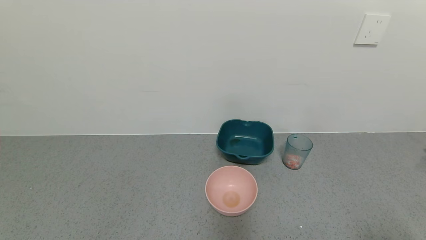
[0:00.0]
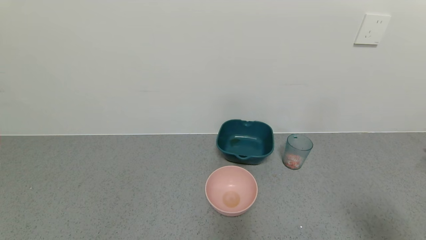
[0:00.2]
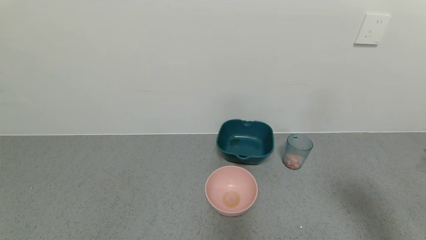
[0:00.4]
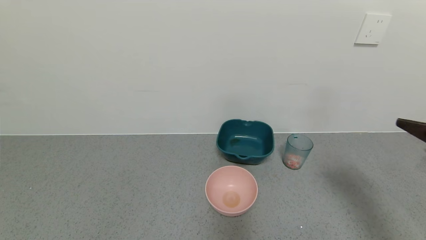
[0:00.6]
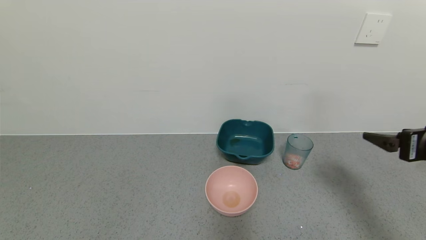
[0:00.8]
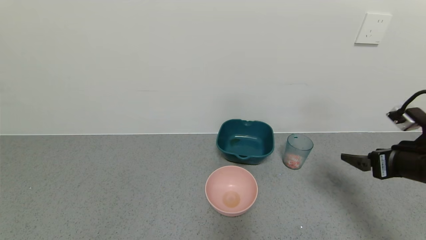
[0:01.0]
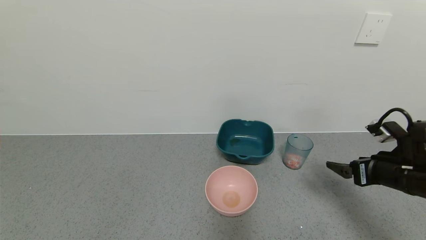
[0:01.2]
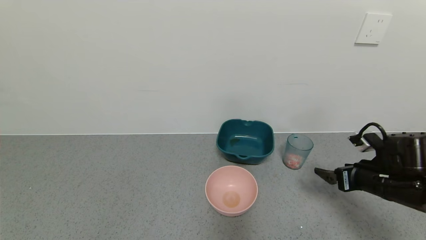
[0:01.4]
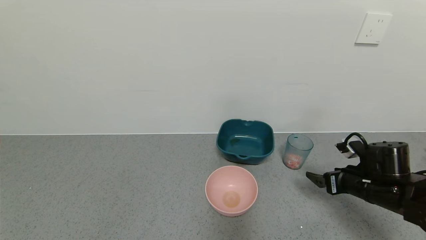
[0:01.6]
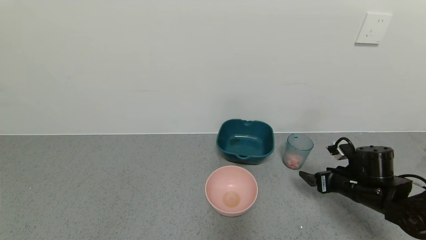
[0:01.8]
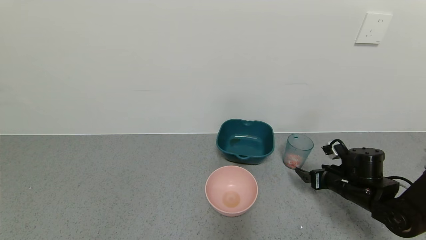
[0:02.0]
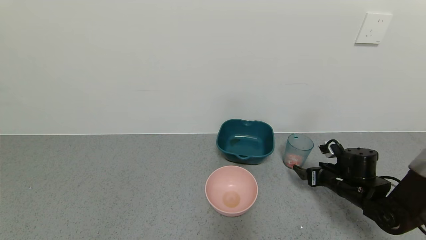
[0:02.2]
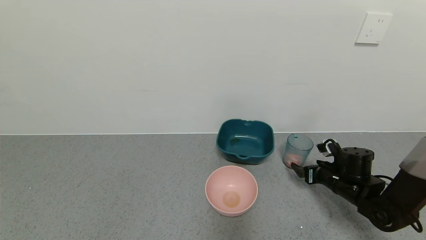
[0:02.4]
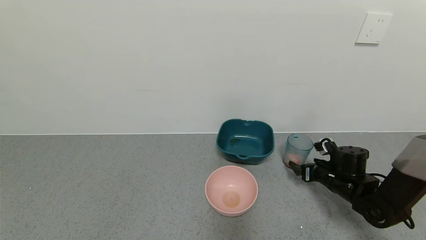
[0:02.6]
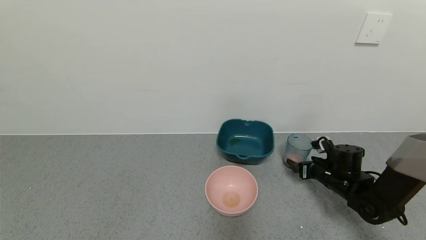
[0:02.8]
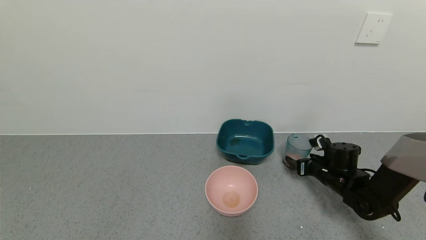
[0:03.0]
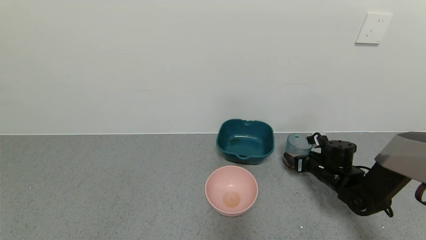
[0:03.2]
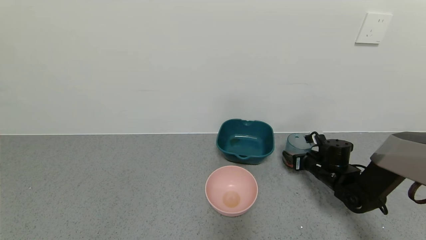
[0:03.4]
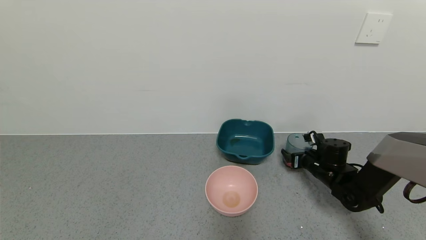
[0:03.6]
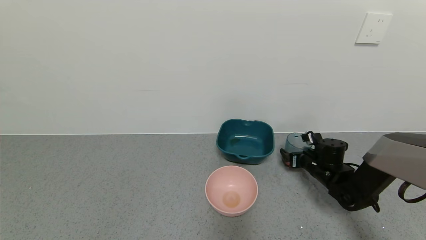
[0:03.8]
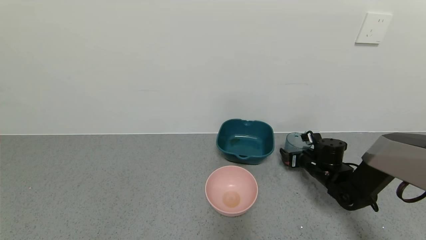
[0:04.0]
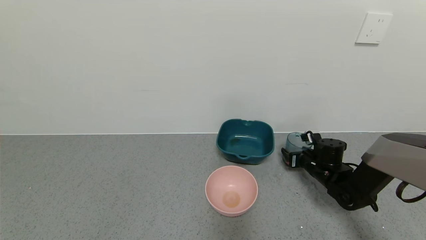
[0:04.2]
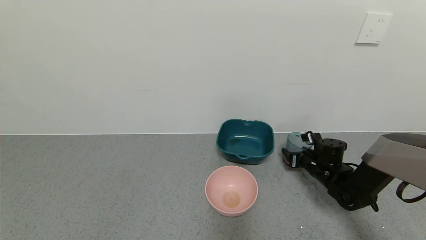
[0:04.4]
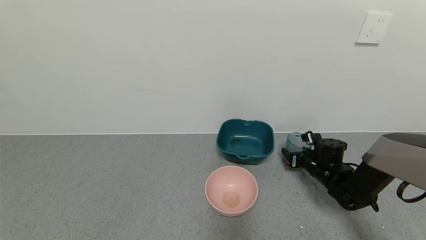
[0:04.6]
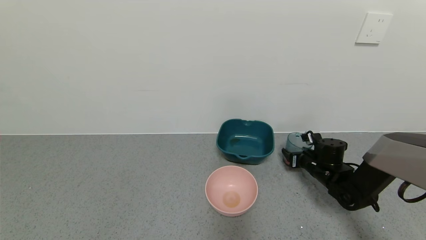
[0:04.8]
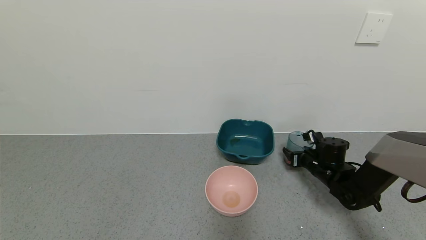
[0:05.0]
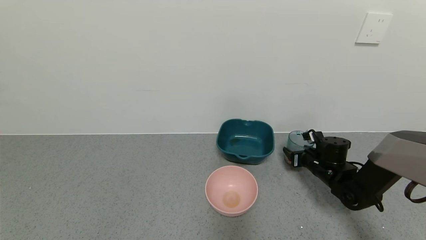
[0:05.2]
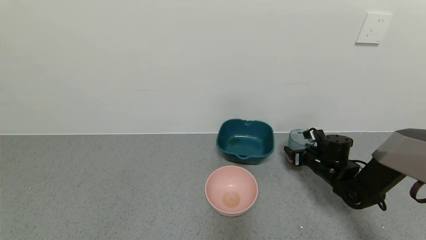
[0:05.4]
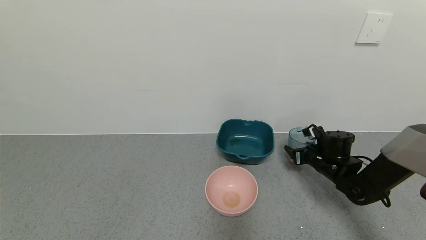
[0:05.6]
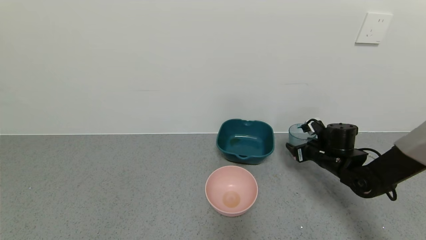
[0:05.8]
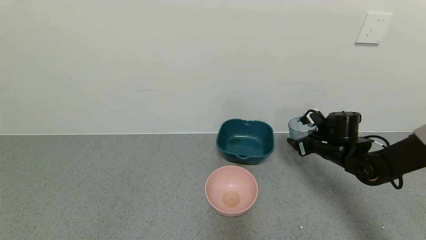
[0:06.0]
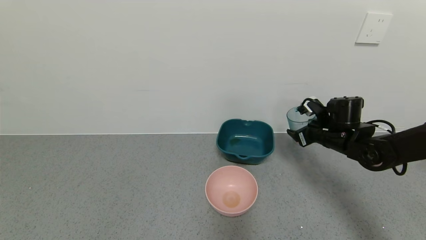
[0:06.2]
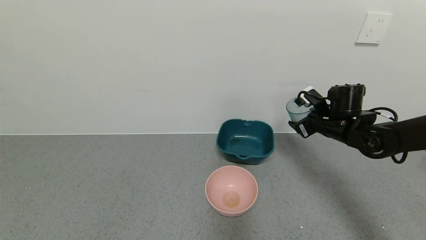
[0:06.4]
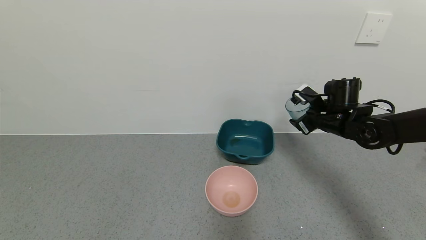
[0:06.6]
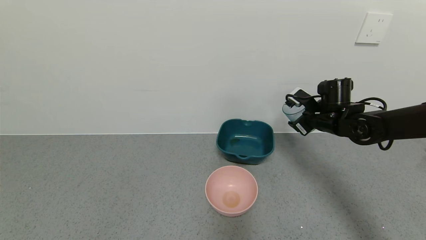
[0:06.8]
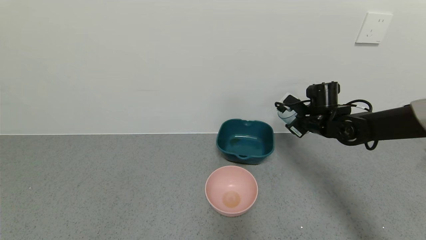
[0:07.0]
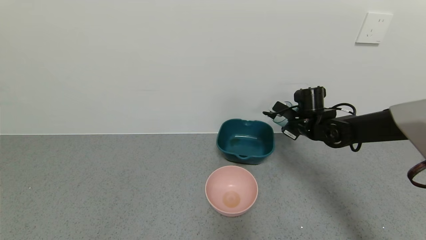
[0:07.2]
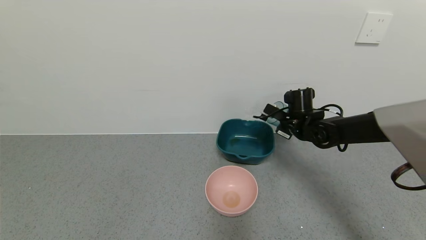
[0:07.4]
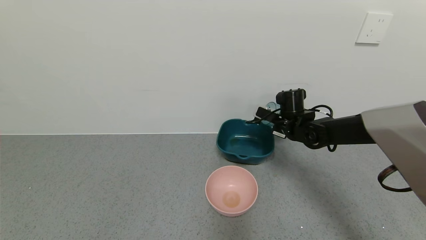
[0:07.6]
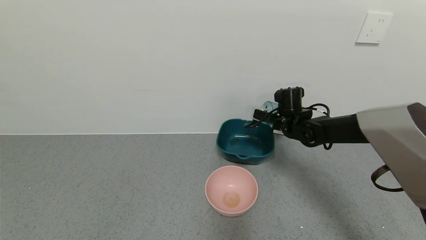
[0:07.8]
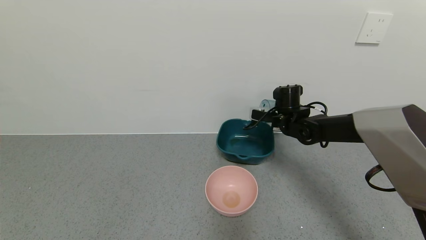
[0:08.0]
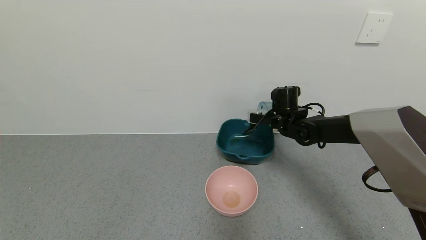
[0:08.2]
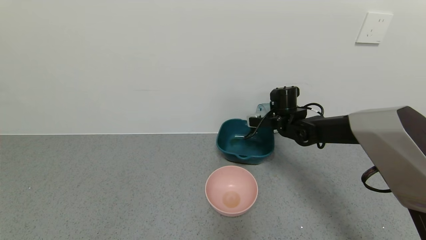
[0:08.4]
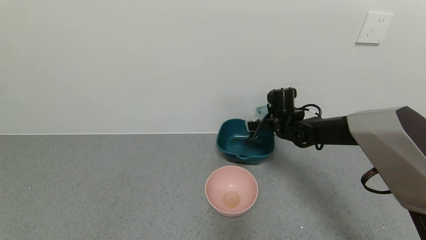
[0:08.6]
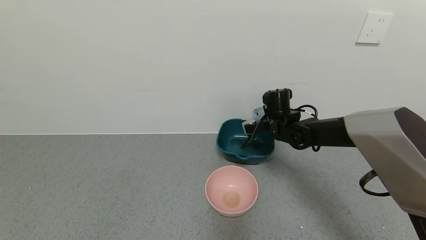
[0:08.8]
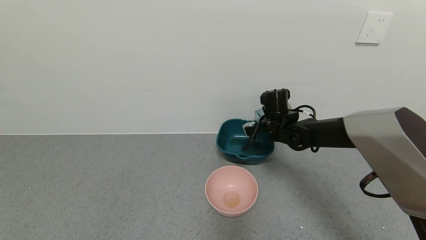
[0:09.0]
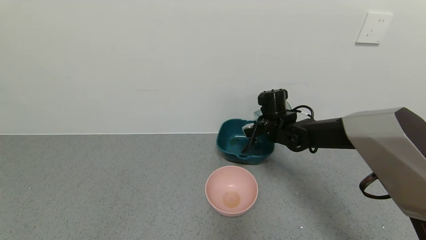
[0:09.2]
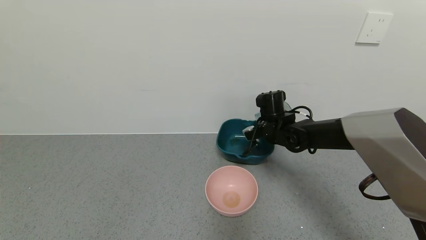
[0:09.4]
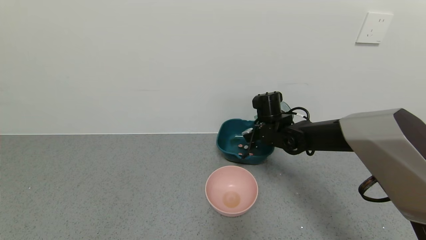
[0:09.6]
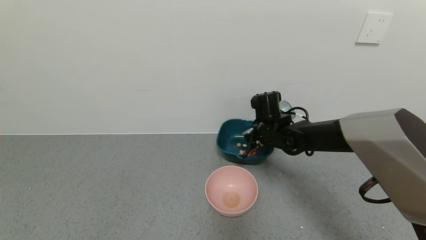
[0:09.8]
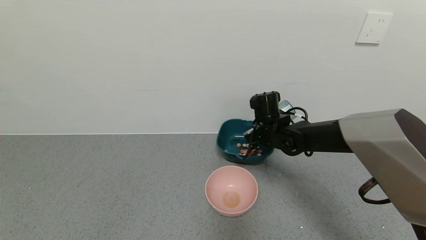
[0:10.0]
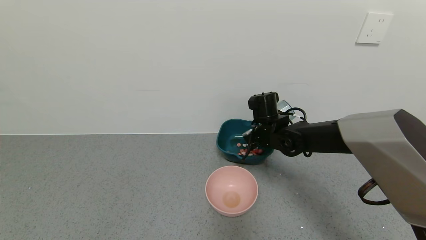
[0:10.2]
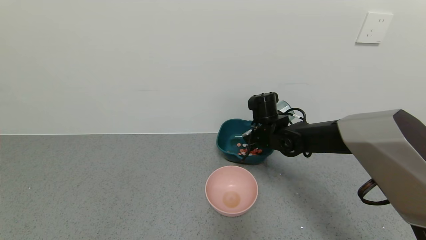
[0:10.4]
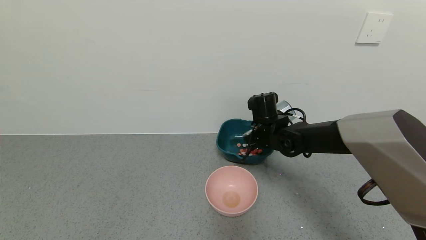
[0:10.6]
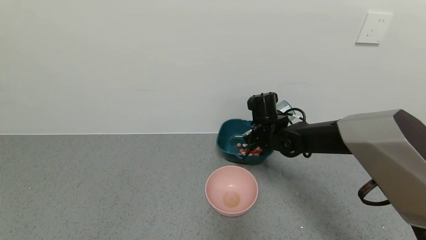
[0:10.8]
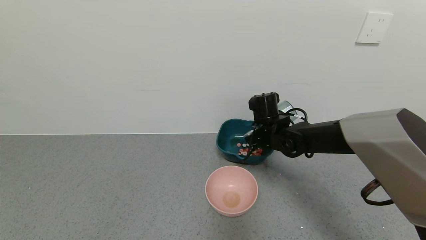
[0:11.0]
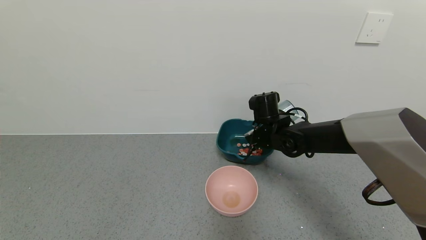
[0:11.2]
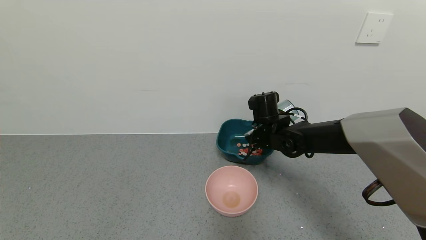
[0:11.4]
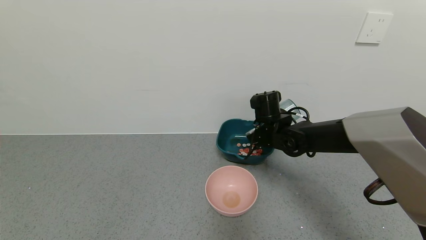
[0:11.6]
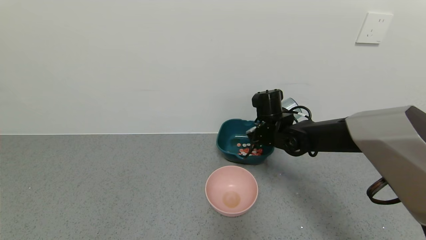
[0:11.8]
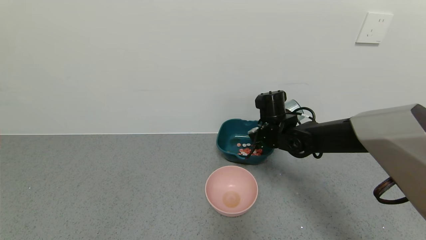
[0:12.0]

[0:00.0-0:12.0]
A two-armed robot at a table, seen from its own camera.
Task of the whole recording: use a gripper to pick up the cup and pour the solid into a bowl or tray.
Step, 0:00.0 to 0:04.2: Grasp the glass of shrimp with the right gripper.
0:00.0 to 0:01.6: The right gripper goes about 30 cm forward and downward.
0:01.6 to 0:03.0: The right gripper goes about 10 cm forward and downward.
0:03.0 to 0:04.4: The right gripper closes its fingers.
0:04.4 to 0:06.0: The right gripper heads upward, covering some 10 cm.
0:06.0 to 0:07.6: The right gripper moves to the left and forward, approximately 10 cm.
0:09.0 to 0:12.0: There are only small adjustments of the grippers.

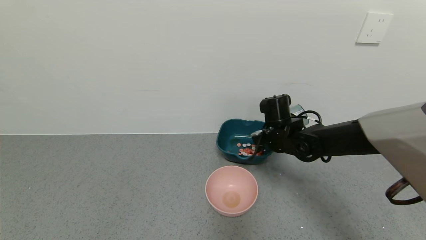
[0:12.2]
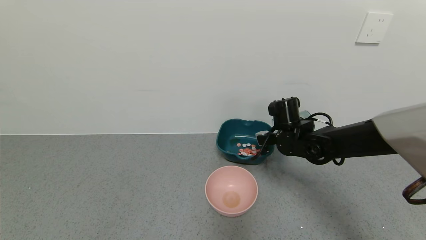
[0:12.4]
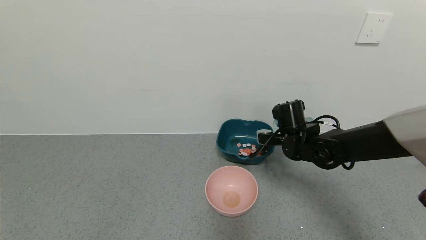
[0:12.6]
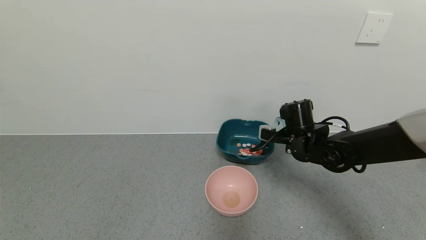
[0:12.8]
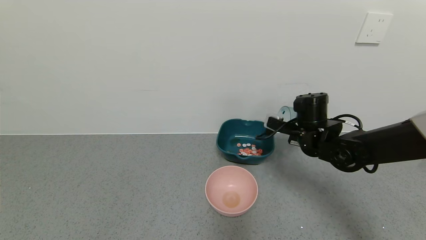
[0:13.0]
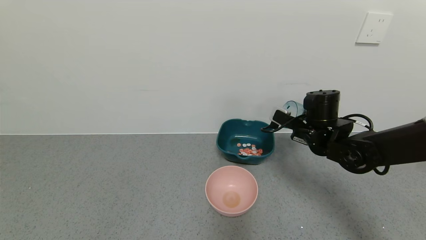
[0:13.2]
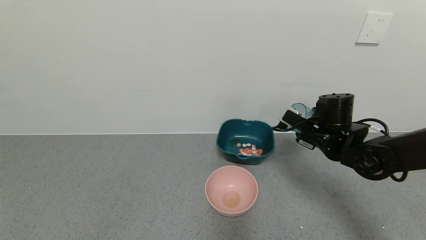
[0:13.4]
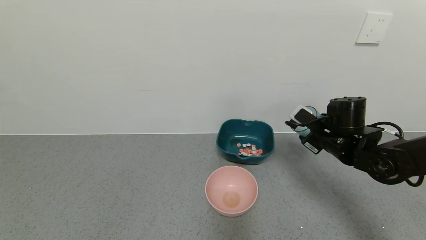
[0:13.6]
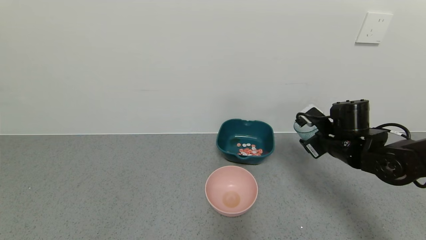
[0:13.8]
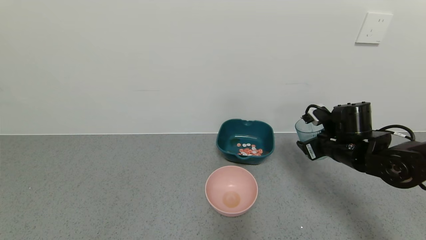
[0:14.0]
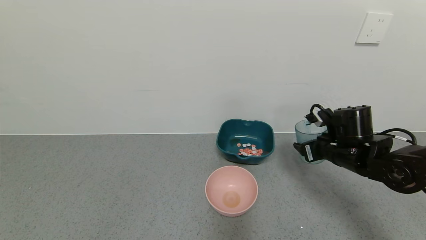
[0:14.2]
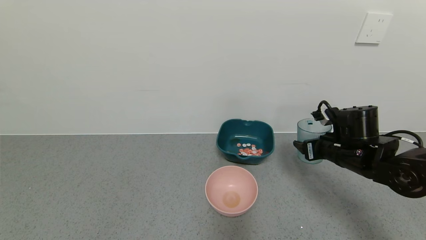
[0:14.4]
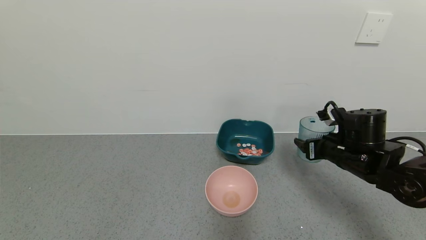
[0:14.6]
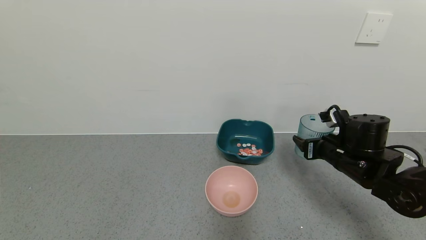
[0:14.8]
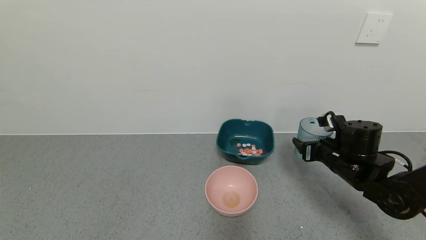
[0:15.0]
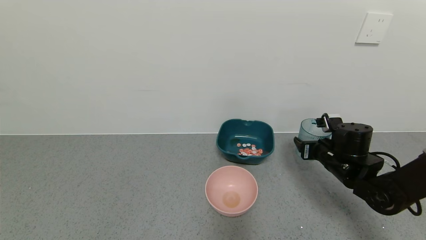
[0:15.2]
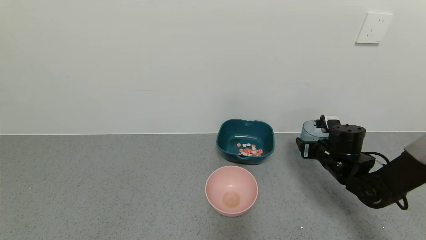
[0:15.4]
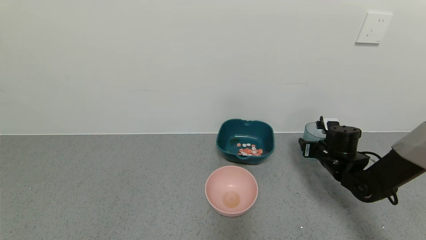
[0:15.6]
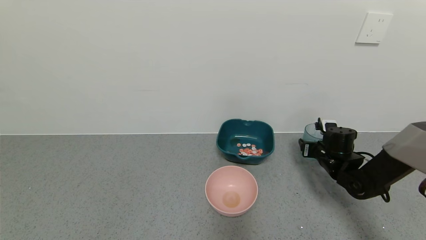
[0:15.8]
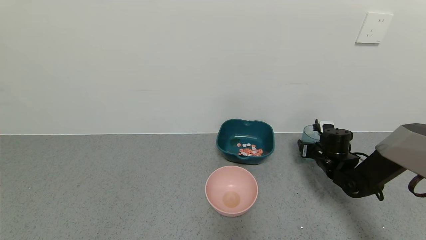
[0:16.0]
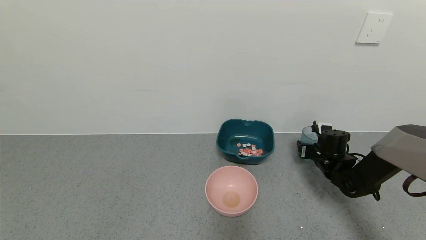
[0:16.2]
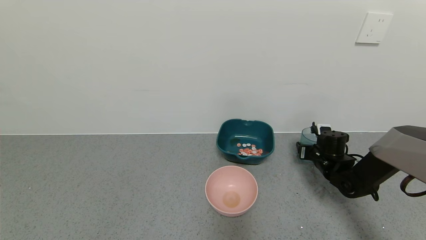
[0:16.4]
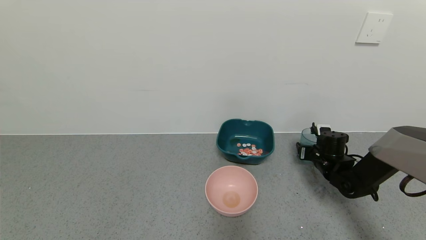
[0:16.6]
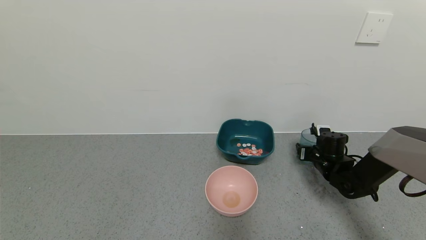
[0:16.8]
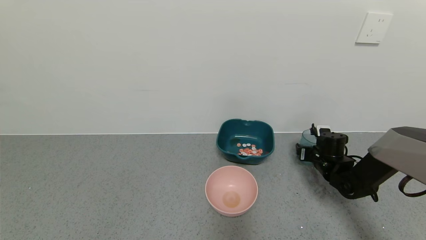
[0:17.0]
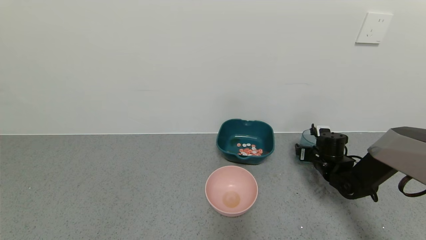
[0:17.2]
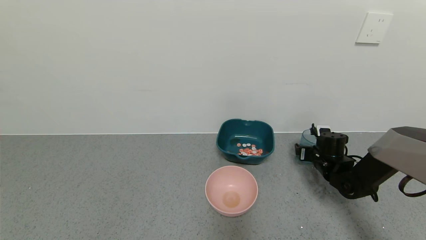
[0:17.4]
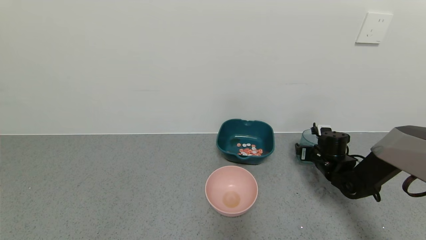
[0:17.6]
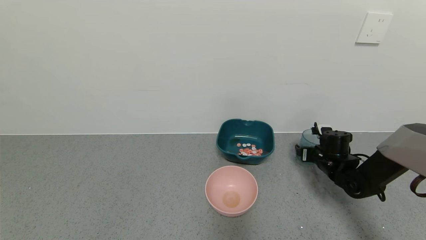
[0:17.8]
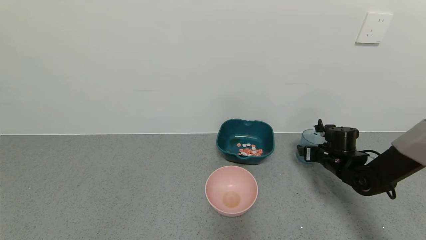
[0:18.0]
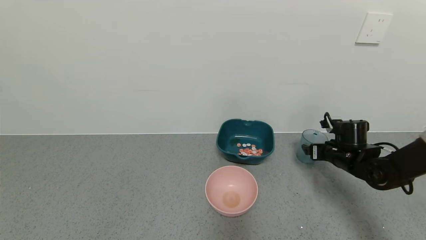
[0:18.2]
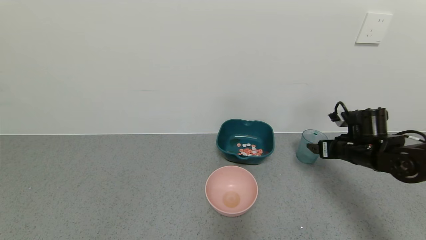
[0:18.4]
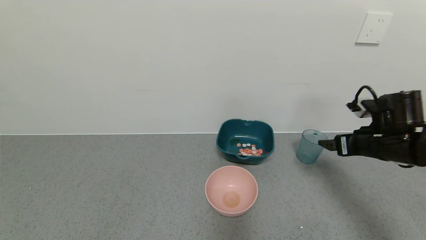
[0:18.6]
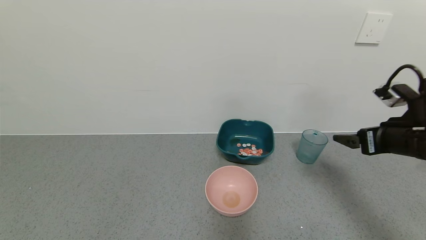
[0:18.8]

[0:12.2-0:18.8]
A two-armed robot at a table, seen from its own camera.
Task of the whole recording: use a gripper to pick up the cup and pour the solid into a bowl or tray.
Step, 0:13.0 to 0:18.2: Place the glass cup with the right gripper.
0:12.2 to 0:13.8: The right gripper moves to the right and backward, approximately 15 cm.
0:13.8 to 0:15.4: The right gripper moves downward, approximately 5 cm.
0:15.4 to 0:17.2: The right gripper travels downward and forward by roughly 10 cm, and opens up.
0:17.2 to 0:18.8: The right gripper travels upward and backward by roughly 25 cm, and opens up.
